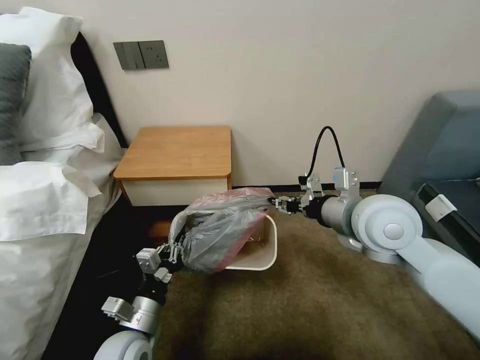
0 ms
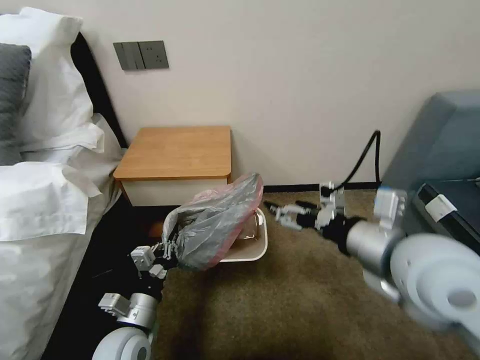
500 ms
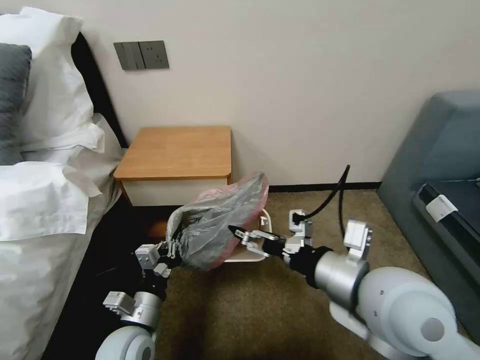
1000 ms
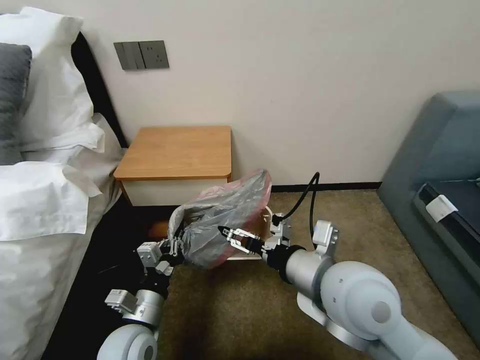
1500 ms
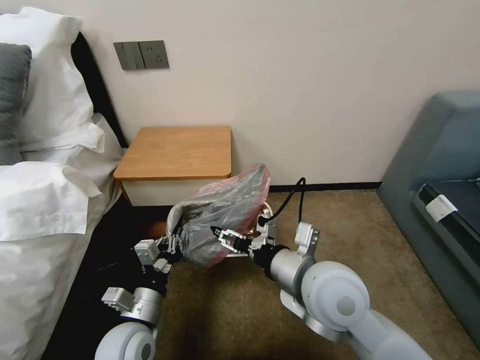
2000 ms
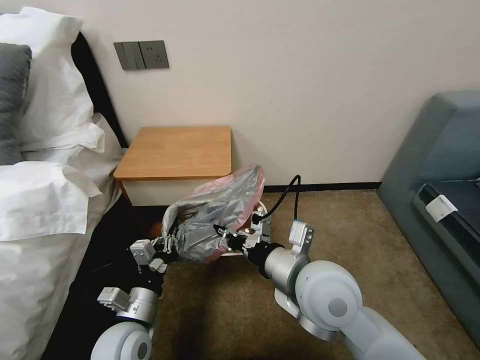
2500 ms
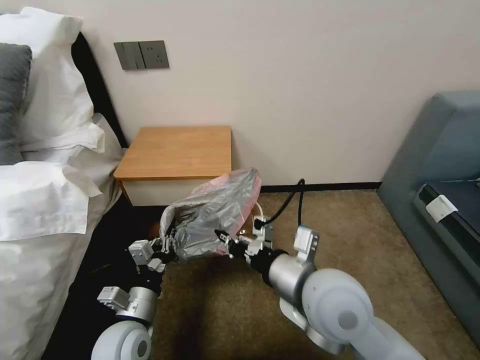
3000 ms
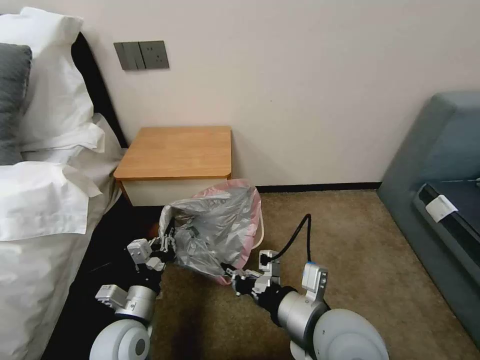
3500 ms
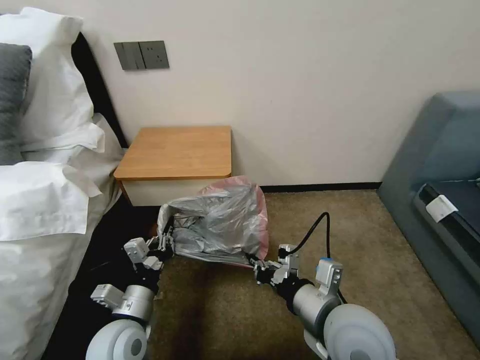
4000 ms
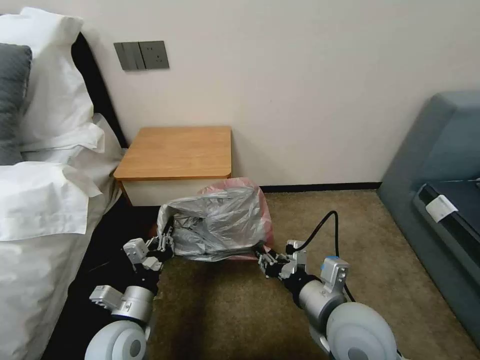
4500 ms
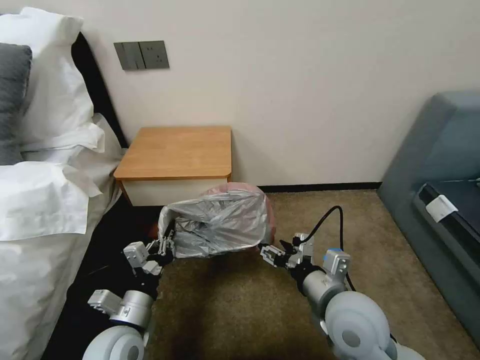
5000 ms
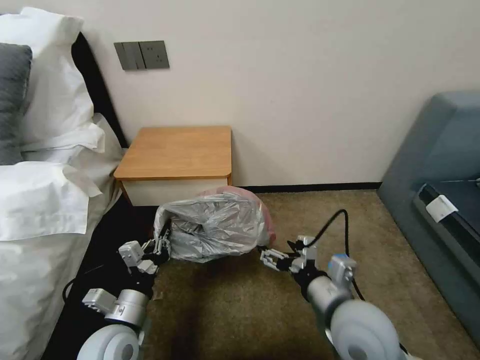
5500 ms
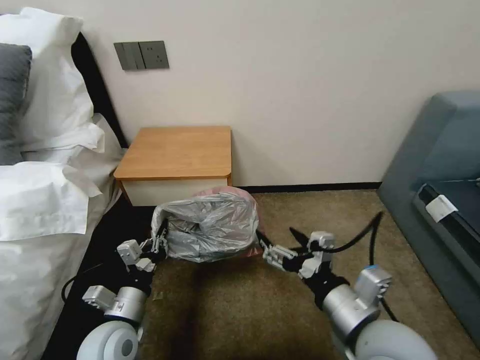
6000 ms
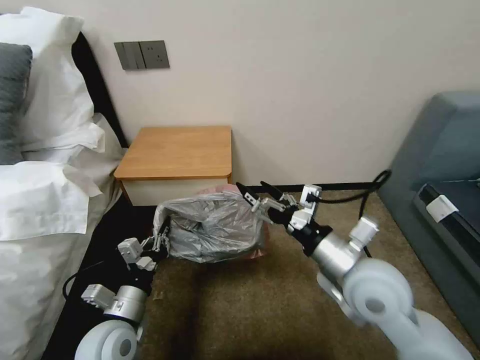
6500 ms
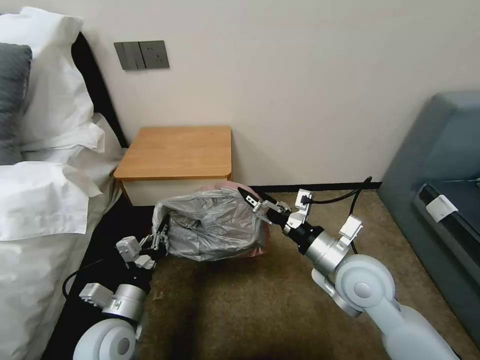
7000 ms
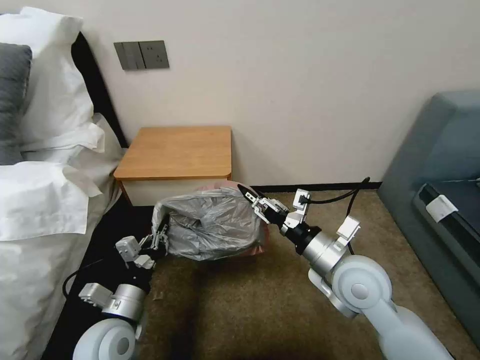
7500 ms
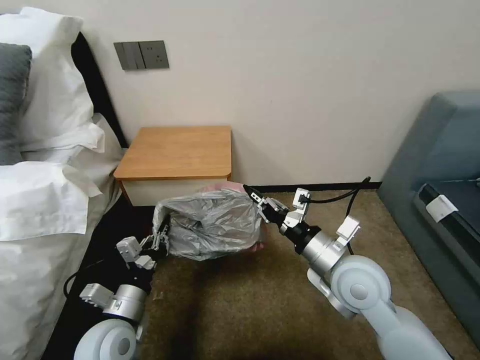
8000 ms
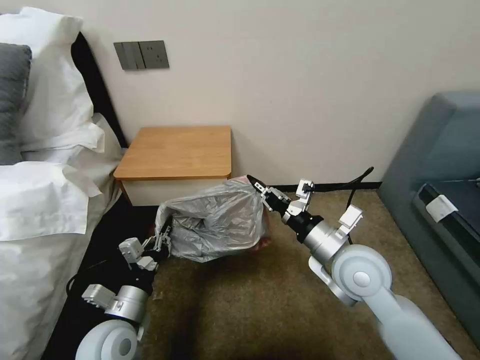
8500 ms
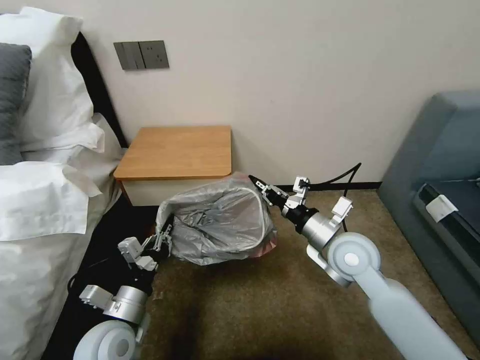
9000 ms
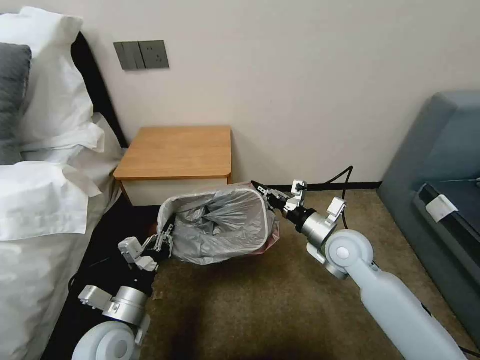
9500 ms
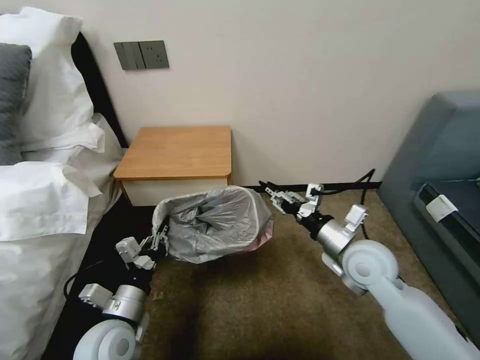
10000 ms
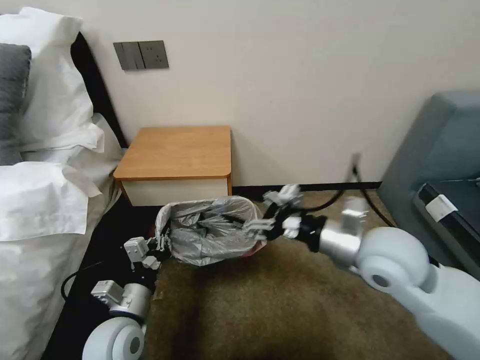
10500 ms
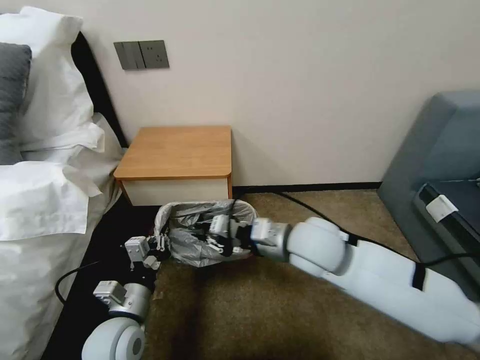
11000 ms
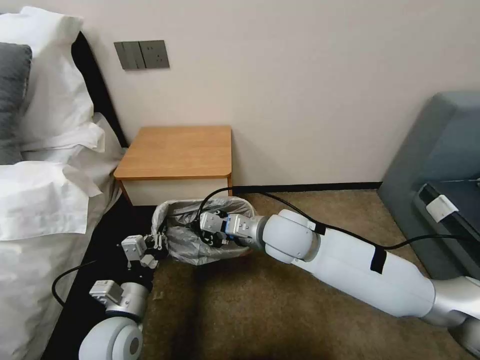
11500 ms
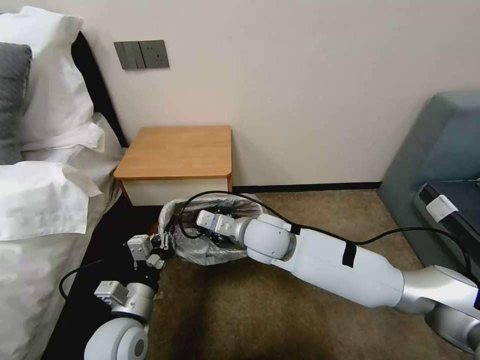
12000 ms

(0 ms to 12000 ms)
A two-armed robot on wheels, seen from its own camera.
Task of the whole recording: Pick up the garbage bag from the table and place it over the trash can.
0 ms - 2000 ms: The right gripper heads to the left, backward and downward, covering some 15 cm.
2000 ms - 4000 ms: The right gripper heads backward, covering roughly 5 cm, and closes up.
4000 ms - 6000 ms: The right gripper shifts by approximately 5 cm, and opens.
6000 ms - 8000 ms: The right gripper goes roughly 10 cm forward, and closes up.
8000 ms - 10000 ms: The right gripper opens.
10000 ms - 12000 ms: The right gripper moves to the left, roughly 20 cm, and closes its fingers.

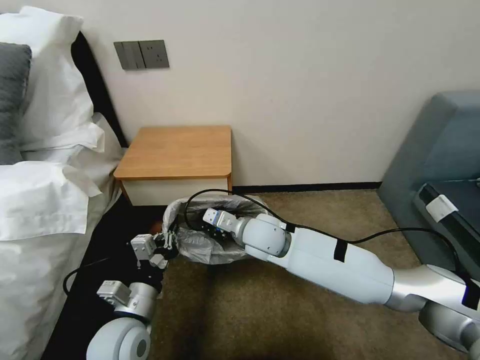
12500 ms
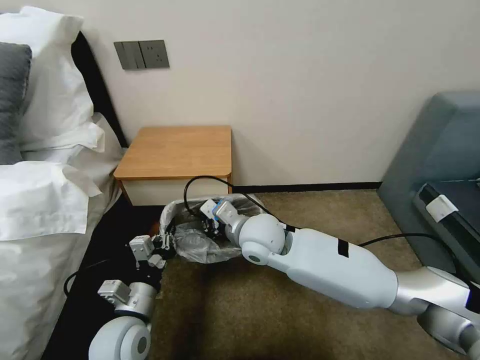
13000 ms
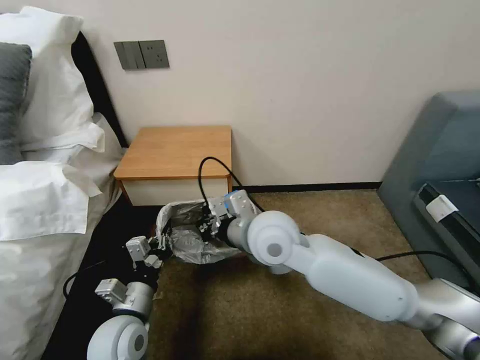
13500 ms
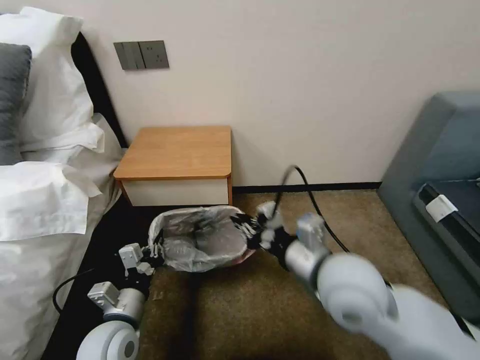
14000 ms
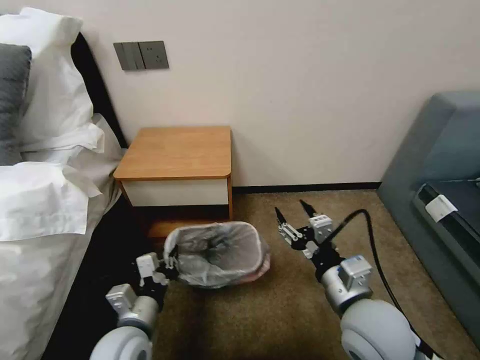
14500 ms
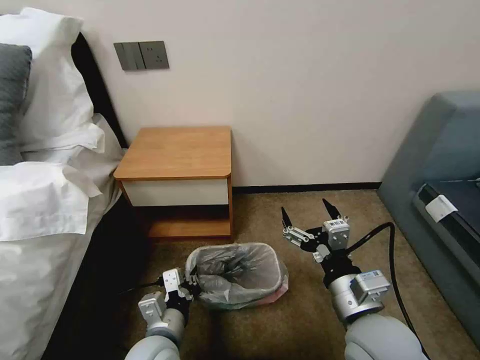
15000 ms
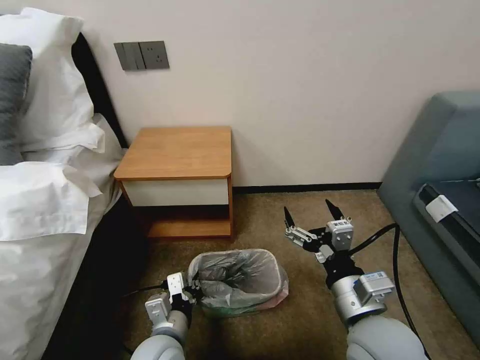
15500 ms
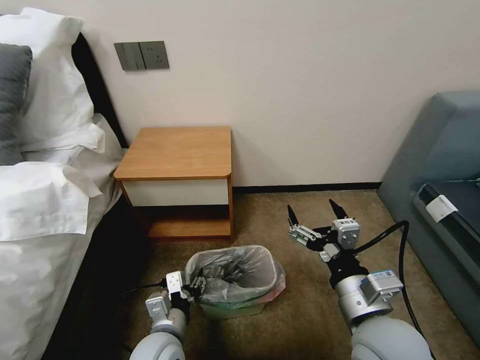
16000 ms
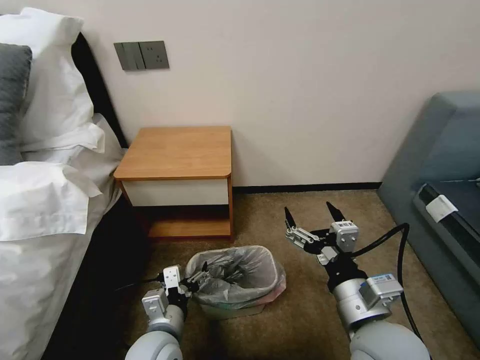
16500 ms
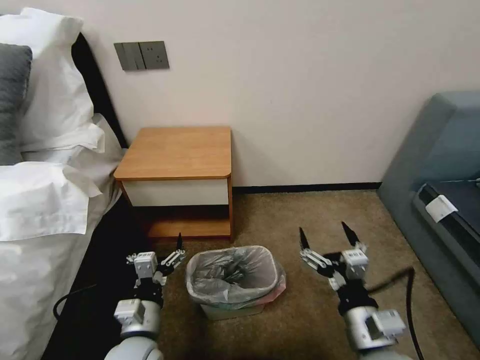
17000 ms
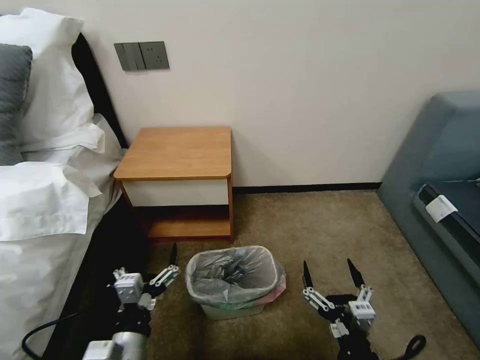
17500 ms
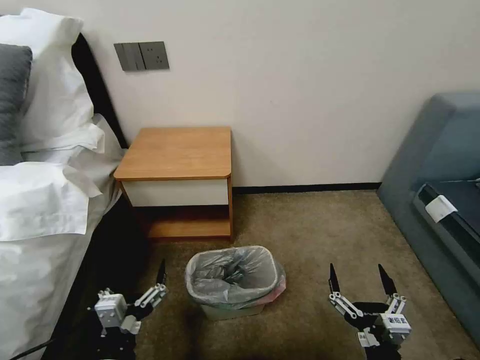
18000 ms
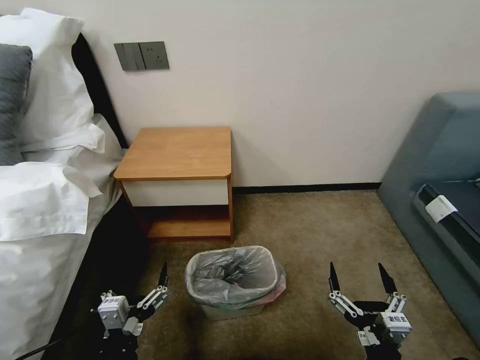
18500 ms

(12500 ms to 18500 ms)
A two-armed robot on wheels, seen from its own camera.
Task of the whole recording: Pick up the garbage bag from the table and place it over the trash can.
12500 ms - 14500 ms: The right gripper travels backward and to the right by approximately 25 cm, and opens its fingers.
14500 ms - 16500 ms: The left gripper heads to the right, covering some 5 cm, and opens.
16500 ms - 18500 ms: The right gripper goes roughly 15 cm downward and backward; the left gripper moves backward and to the left, some 10 cm.

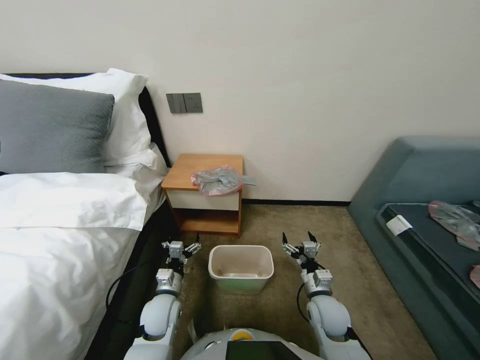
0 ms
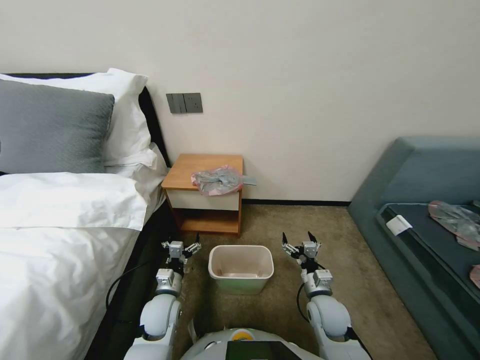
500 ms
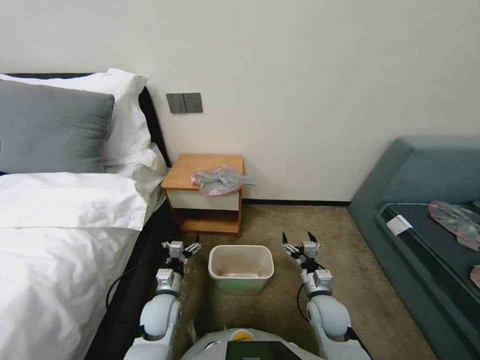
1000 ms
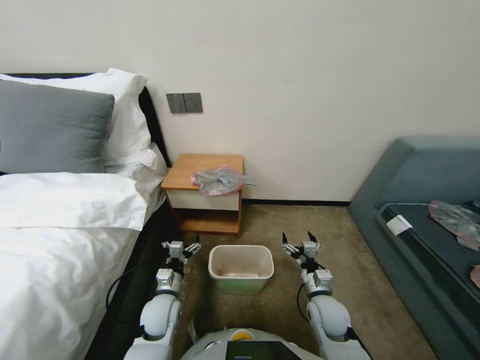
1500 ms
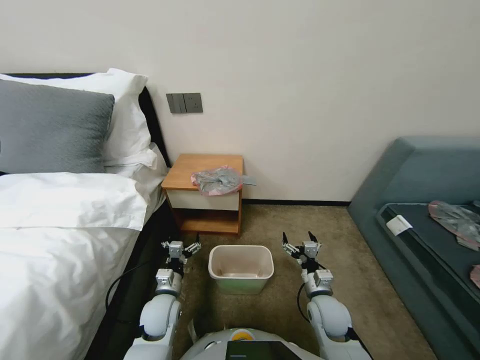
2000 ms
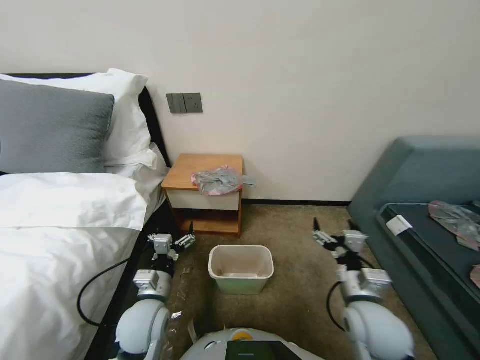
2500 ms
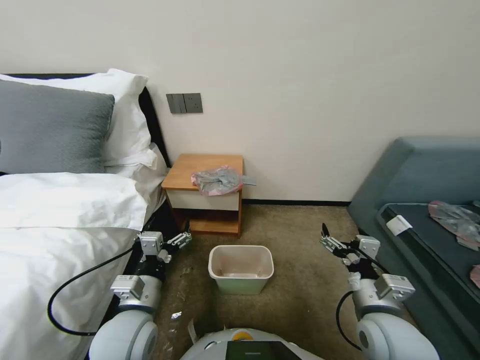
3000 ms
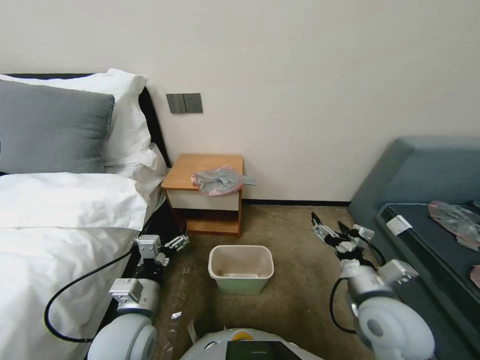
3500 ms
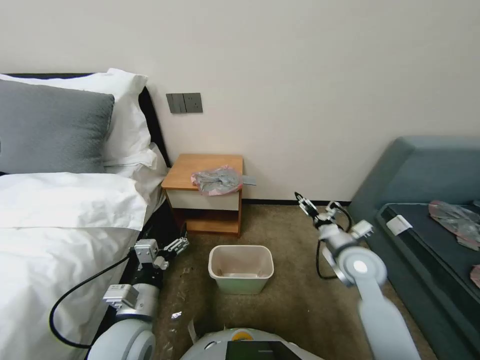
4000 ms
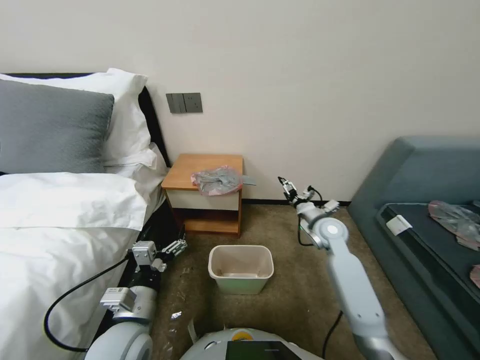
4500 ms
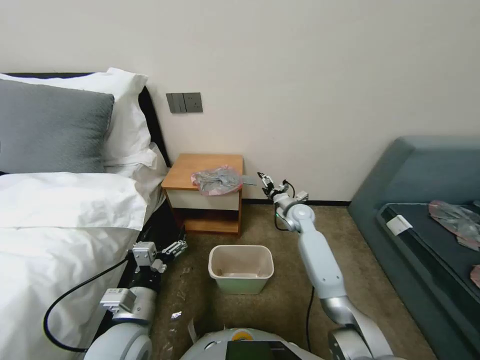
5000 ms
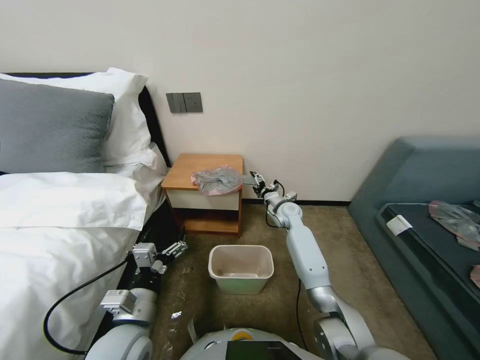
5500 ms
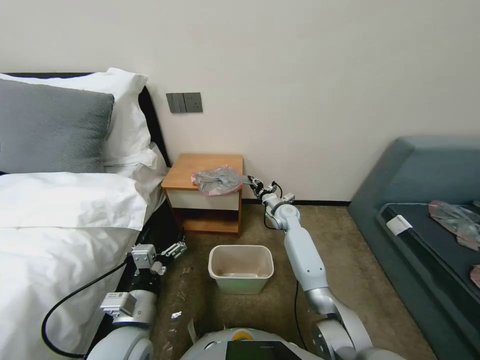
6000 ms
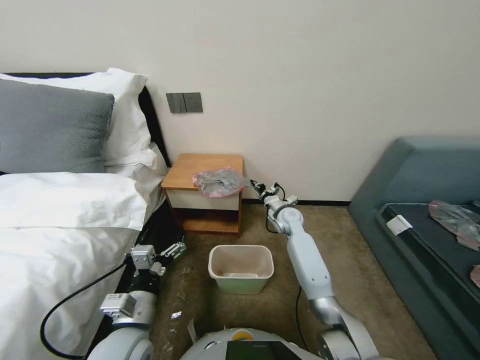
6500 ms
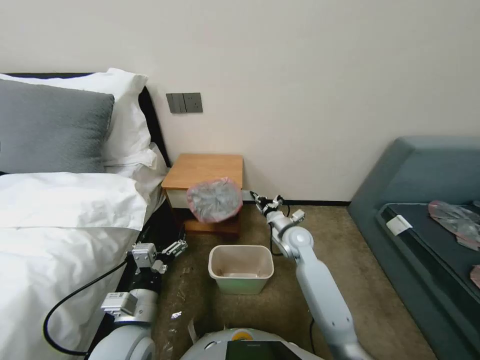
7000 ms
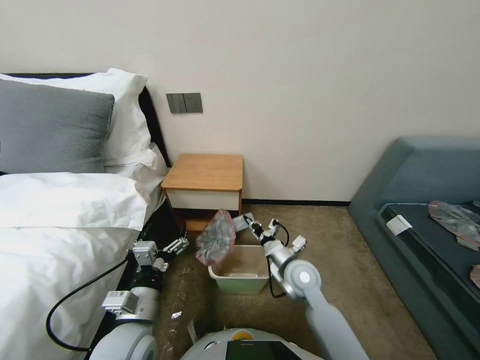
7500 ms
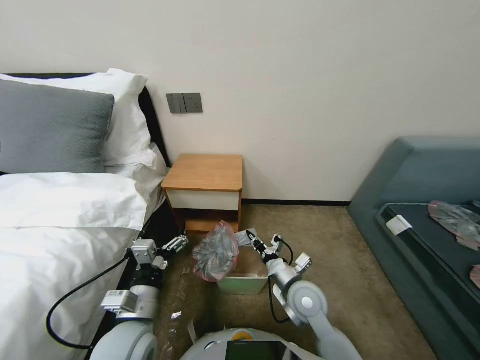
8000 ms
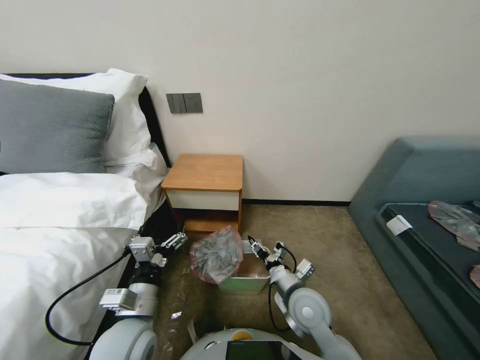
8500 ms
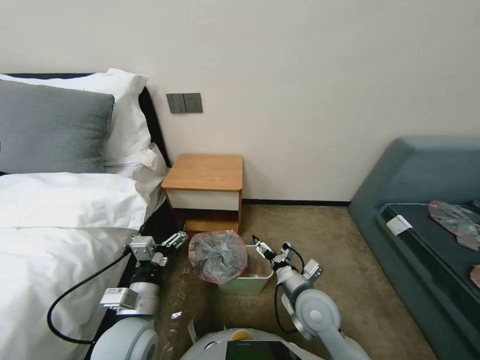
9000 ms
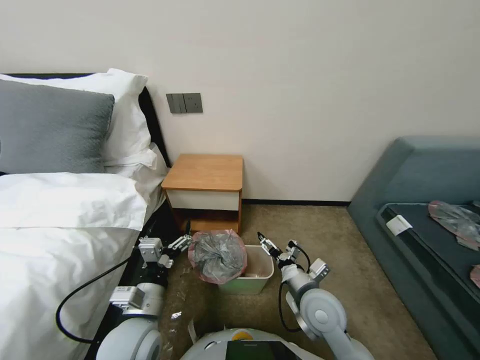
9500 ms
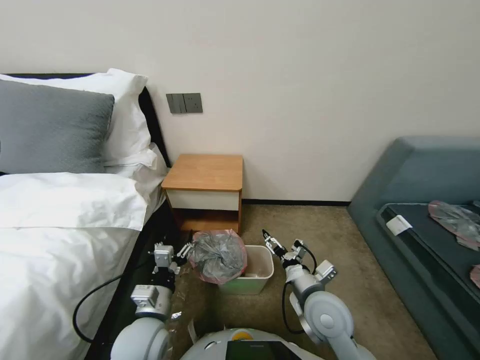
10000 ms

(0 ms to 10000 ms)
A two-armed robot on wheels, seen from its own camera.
Task of the whole recording: Pick up the garbage bag from the table and place it over the trash can.
2000 ms - 4000 ms: The left gripper heads upward and backward, covering roughly 15 cm, while the right gripper travels upward by about 15 cm.
4000 ms - 6000 ms: The right gripper shifts about 25 cm forward and to the left, and closes.
6000 ms - 8000 ms: The right gripper heads backward, covering some 30 cm, and closes.
8000 ms - 10000 ms: The right gripper ends up about 5 cm from where it was, and opens its fingers.
